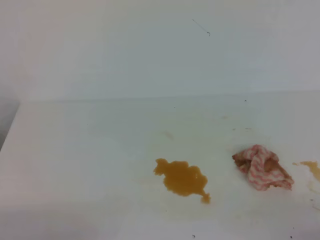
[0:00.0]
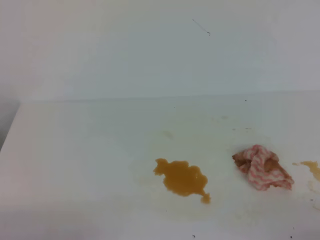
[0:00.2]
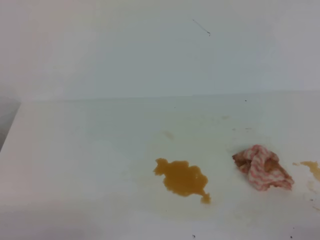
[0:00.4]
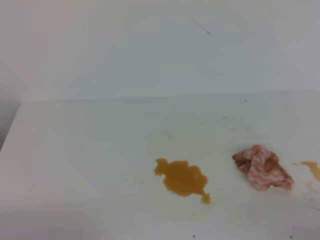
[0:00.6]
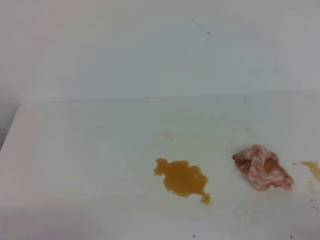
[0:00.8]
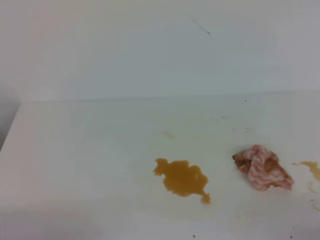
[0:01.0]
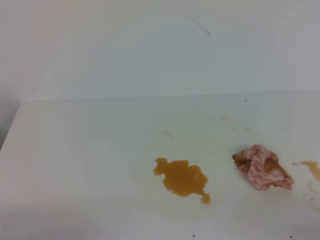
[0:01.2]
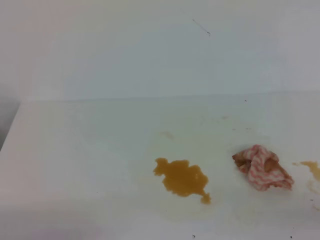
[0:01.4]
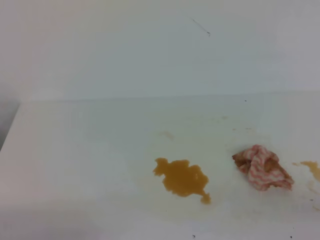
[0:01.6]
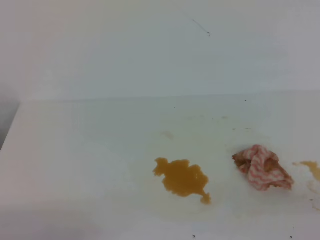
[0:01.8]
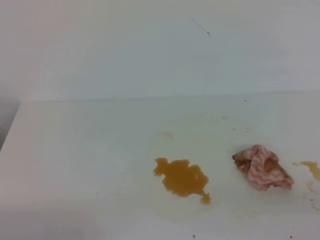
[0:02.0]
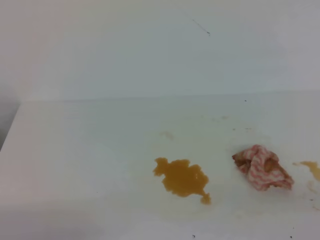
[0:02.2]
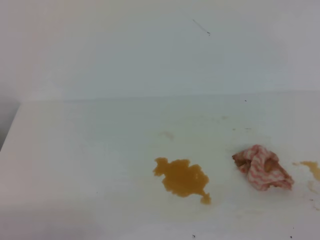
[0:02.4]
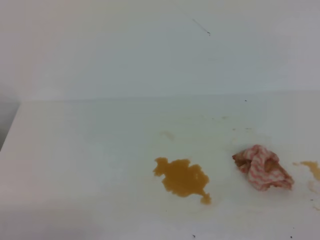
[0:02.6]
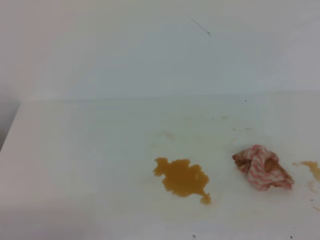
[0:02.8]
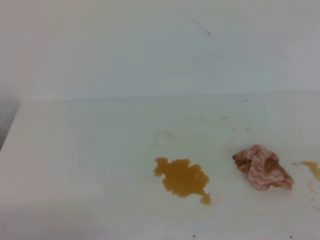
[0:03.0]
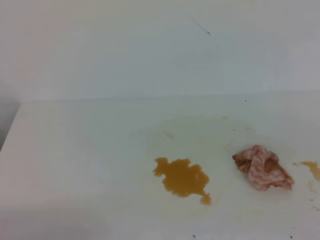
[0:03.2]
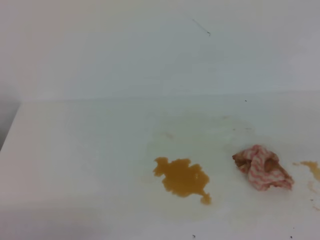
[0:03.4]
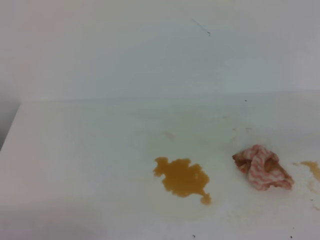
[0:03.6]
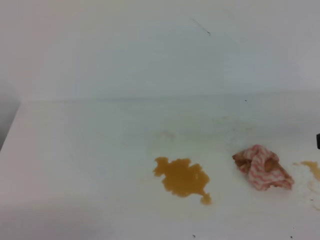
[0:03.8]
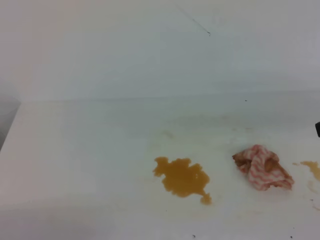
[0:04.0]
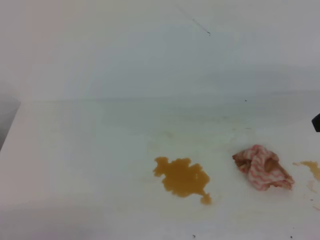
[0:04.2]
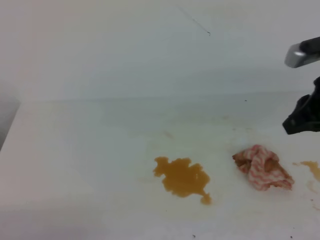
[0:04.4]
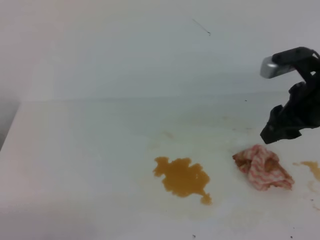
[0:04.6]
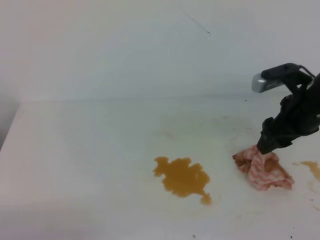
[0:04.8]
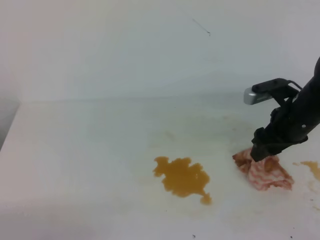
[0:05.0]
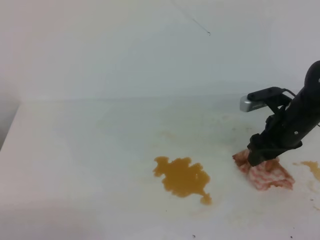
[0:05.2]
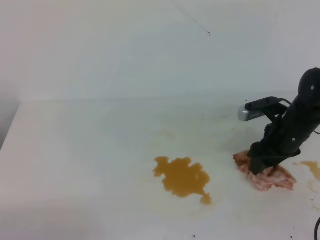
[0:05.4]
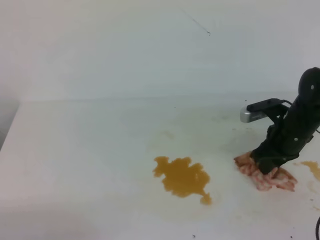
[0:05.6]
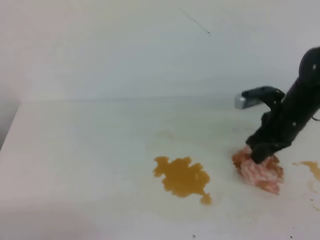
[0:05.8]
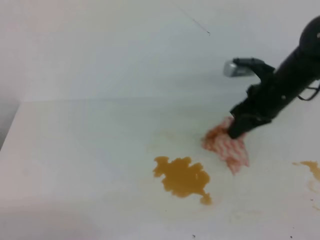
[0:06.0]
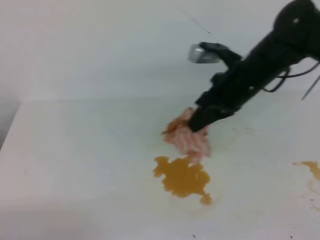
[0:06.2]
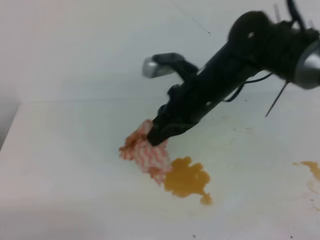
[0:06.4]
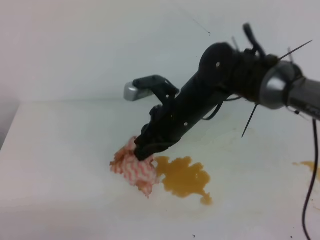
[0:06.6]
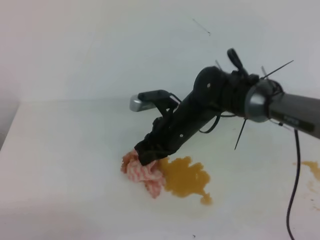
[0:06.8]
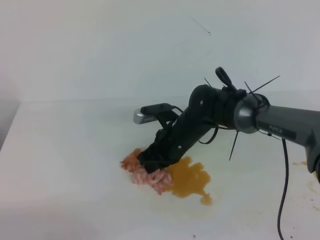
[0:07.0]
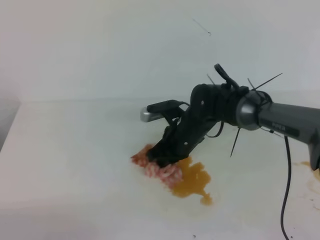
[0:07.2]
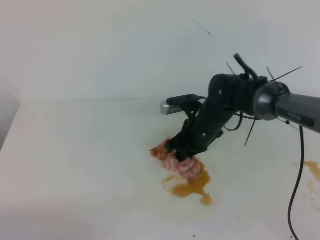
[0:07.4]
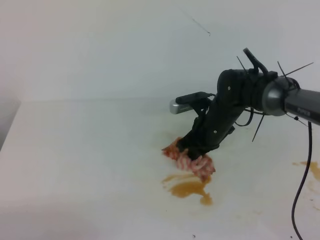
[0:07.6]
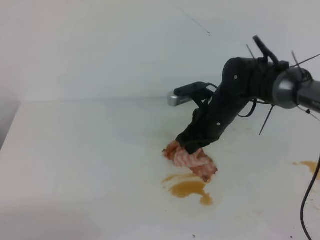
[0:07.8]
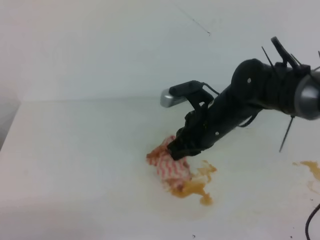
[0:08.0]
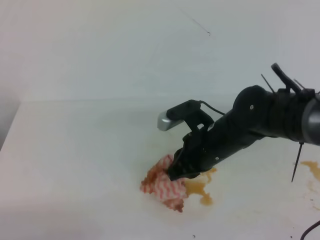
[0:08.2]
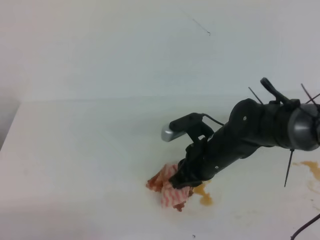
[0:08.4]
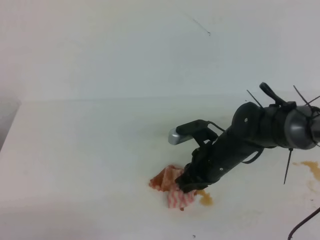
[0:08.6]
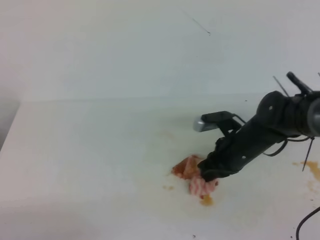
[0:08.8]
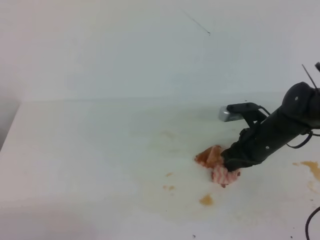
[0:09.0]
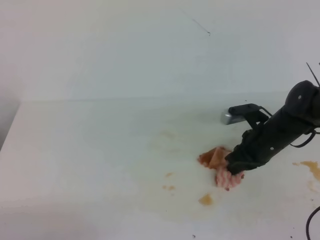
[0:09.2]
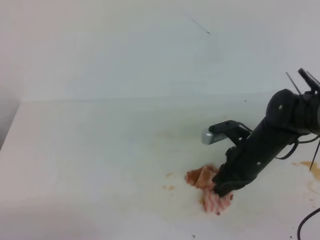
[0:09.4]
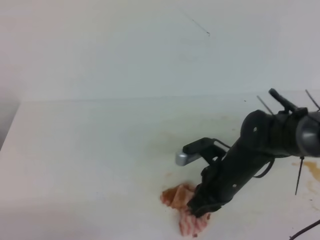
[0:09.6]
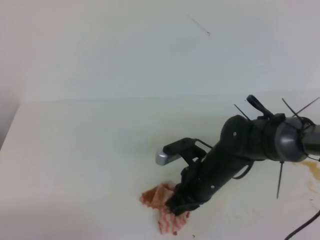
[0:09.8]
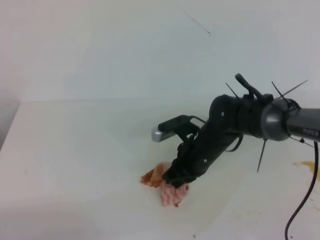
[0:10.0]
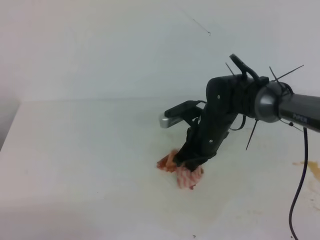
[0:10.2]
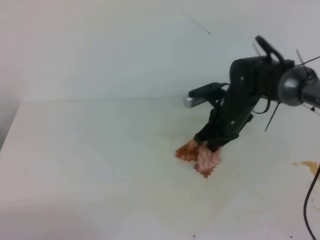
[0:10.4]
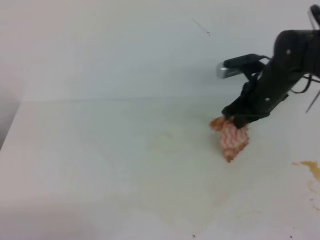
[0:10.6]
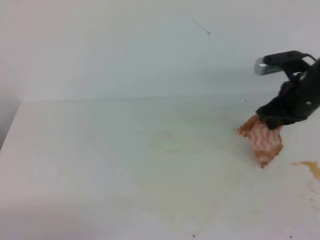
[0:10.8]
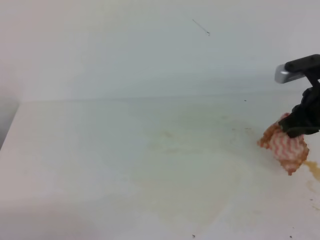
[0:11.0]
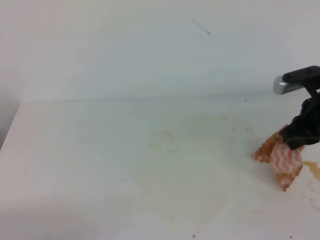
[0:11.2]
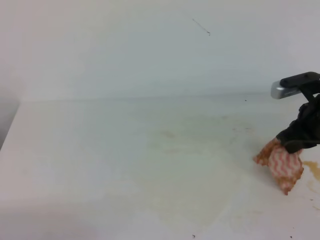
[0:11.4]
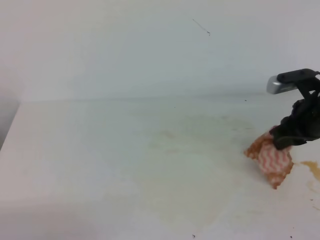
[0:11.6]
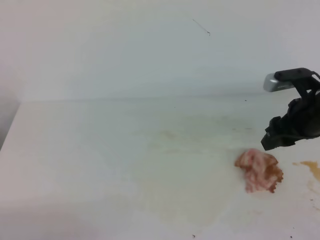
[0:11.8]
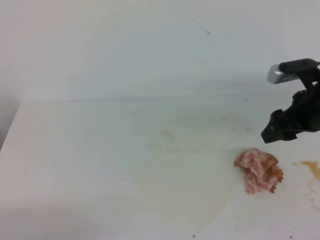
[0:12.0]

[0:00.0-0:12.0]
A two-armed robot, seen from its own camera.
0:03.0 to 0:04.4: The right gripper travels forward by approximately 25 cm, and opens.
0:04.4 to 0:06.0: The right gripper heads forward, to the left and downward, covering about 15 cm, and opens, then closes again.
0:06.0 to 0:07.6: The right gripper goes roughly 10 cm to the left and downward.
0:07.6 to 0:09.0: The right gripper moves to the right, about 10 cm.
0:09.0 to 0:10.4: The right gripper heads upward, covering roughly 5 cm.
0:10.4 to 0:12.0: The right gripper is displaced to the right, backward and upward by approximately 15 cm, and opens.

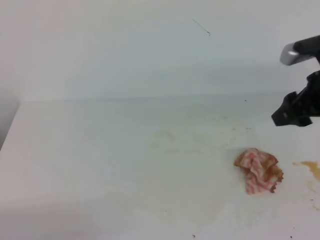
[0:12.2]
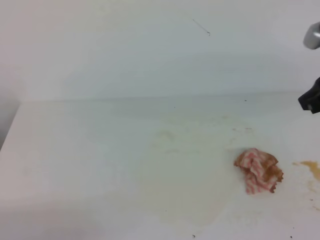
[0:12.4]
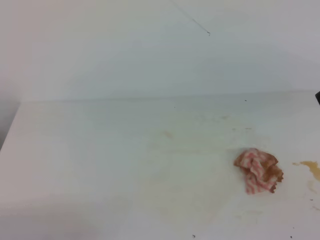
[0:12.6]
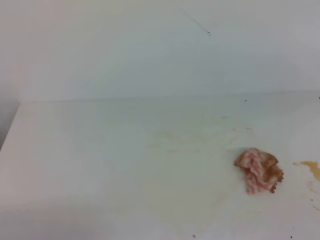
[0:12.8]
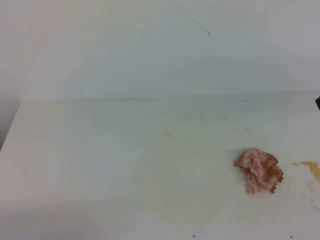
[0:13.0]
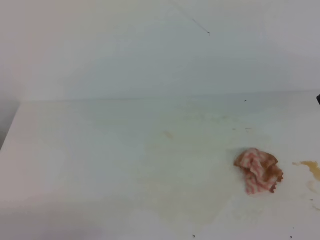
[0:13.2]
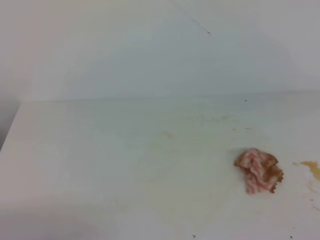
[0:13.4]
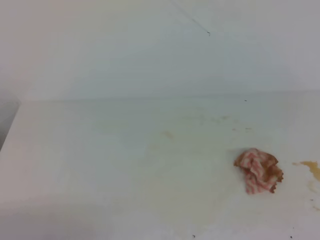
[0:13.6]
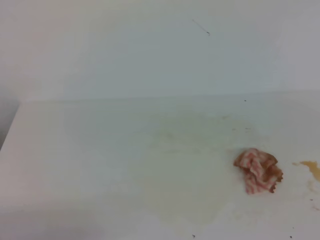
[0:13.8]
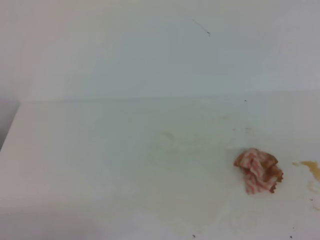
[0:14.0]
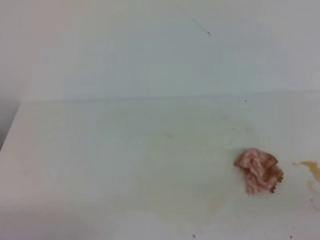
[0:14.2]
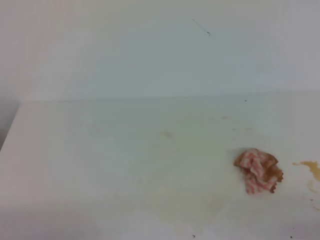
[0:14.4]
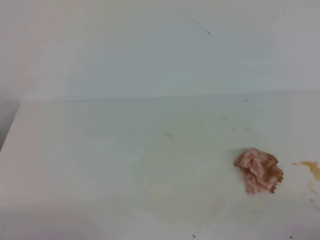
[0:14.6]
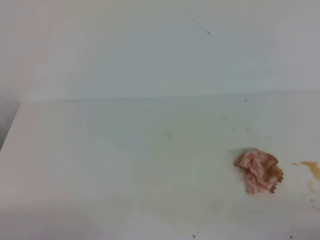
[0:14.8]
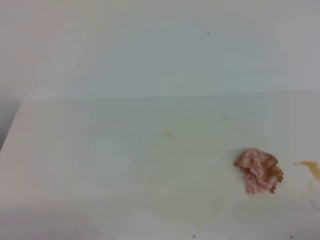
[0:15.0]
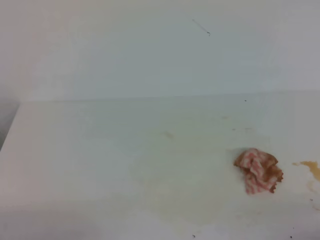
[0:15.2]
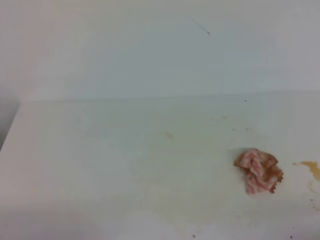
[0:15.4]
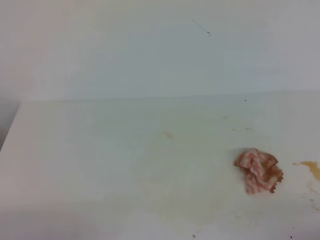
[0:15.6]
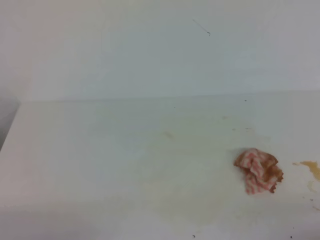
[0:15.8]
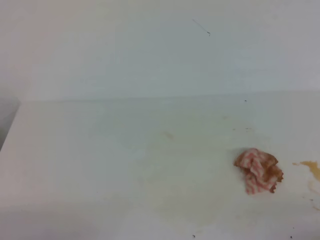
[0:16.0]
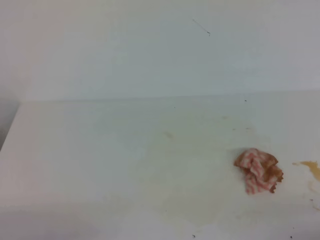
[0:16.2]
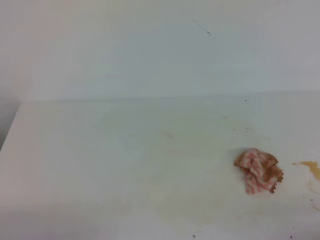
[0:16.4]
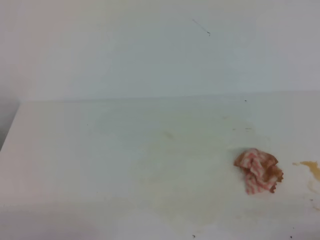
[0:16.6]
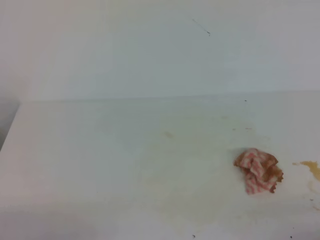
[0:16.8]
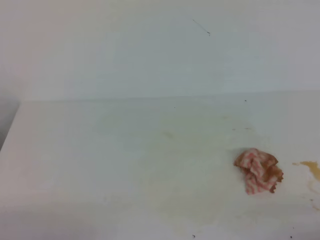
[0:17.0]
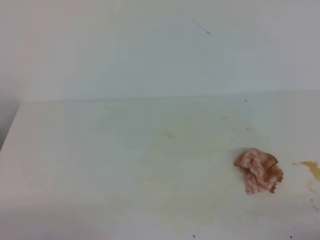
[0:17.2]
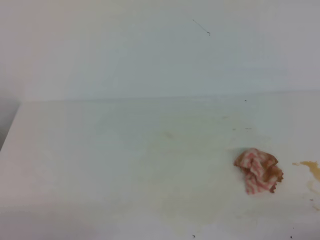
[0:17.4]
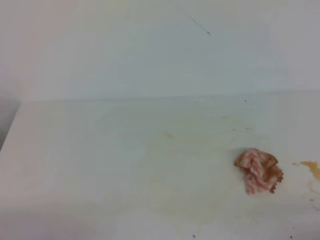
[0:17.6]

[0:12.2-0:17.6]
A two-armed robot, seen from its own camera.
0:12.2 to 0:13.6: The right gripper goes some 25 cm backward and upward, and closes.
0:15.0 to 0:17.6: Both grippers stay about where they are.
